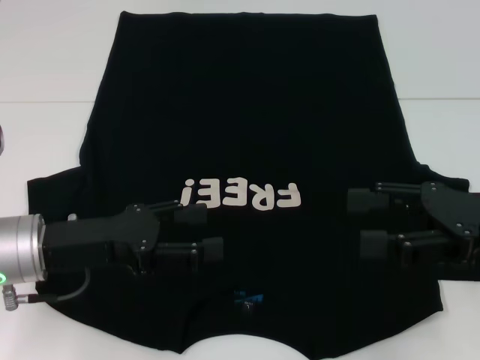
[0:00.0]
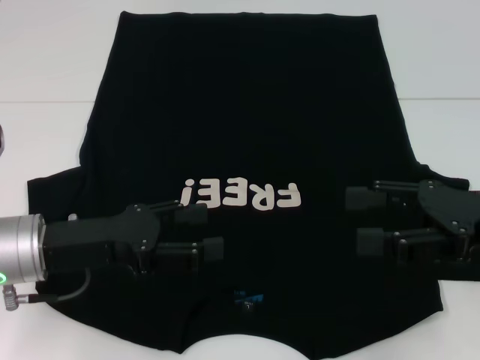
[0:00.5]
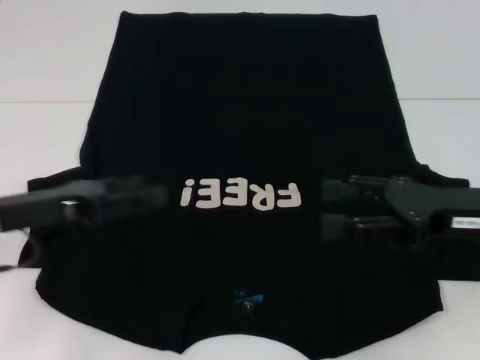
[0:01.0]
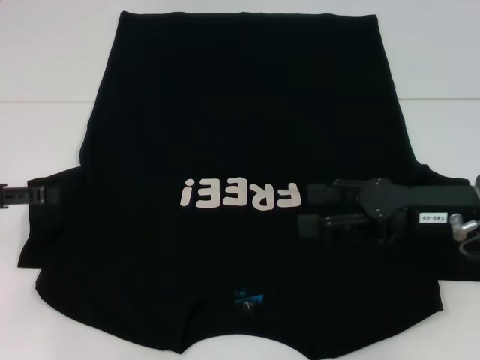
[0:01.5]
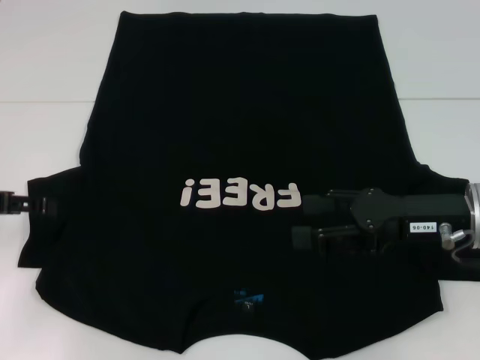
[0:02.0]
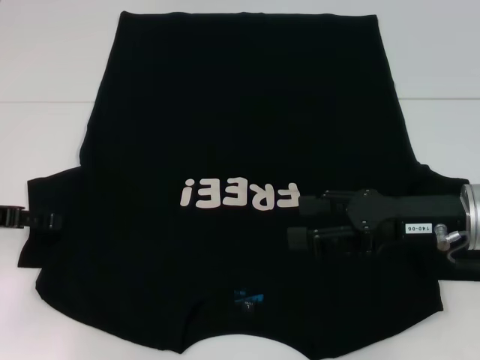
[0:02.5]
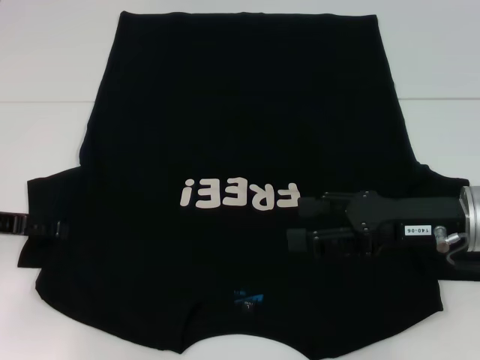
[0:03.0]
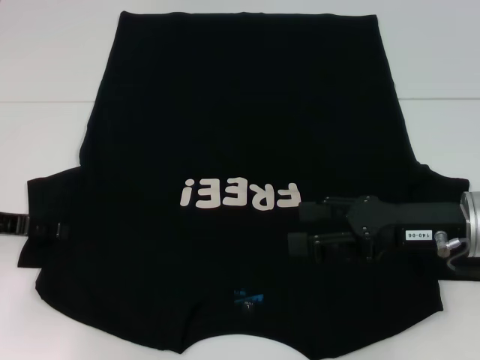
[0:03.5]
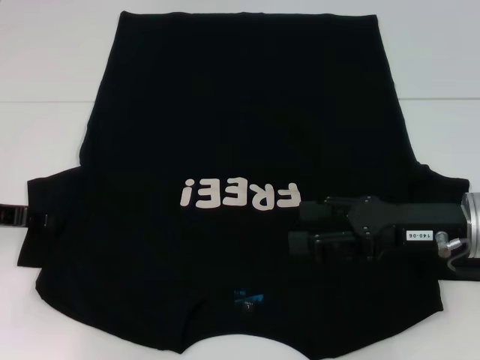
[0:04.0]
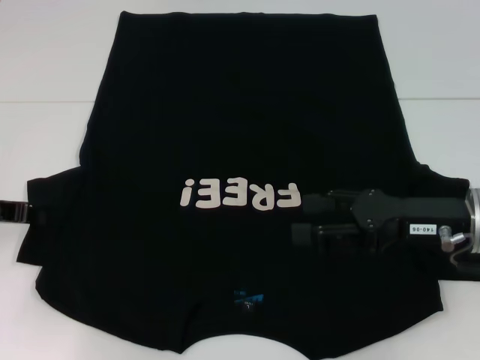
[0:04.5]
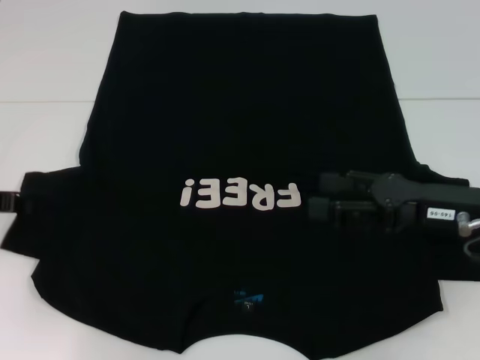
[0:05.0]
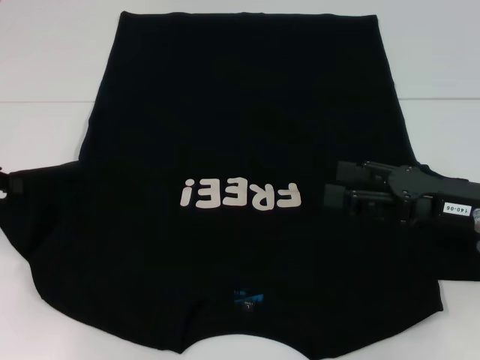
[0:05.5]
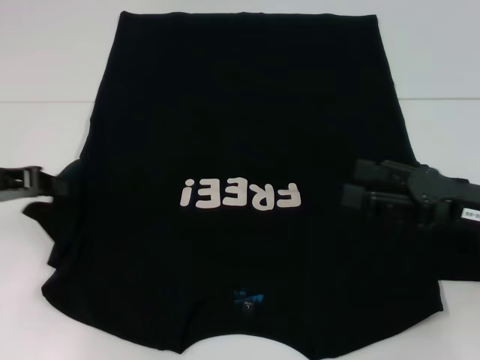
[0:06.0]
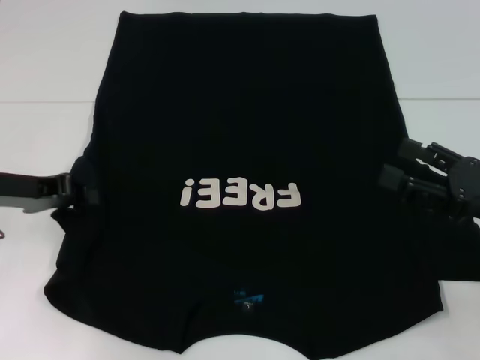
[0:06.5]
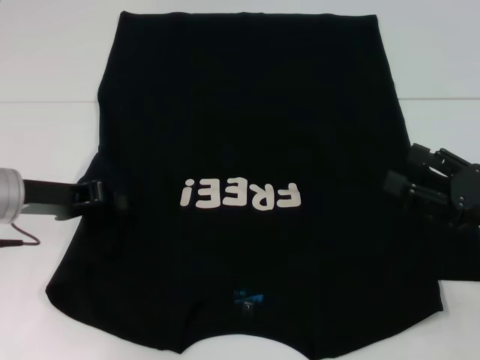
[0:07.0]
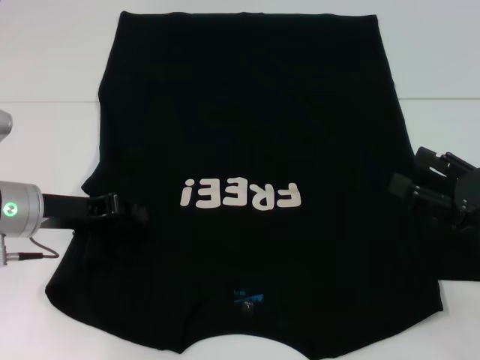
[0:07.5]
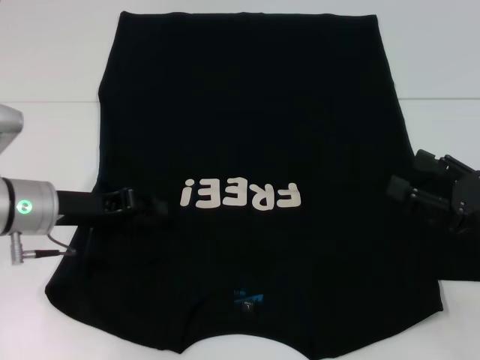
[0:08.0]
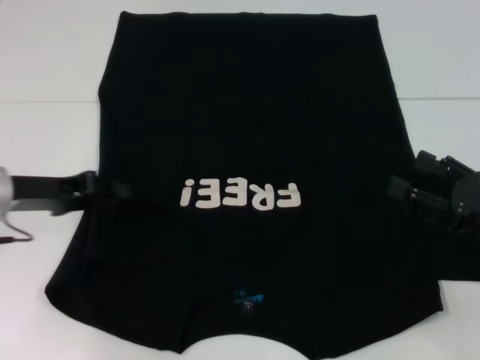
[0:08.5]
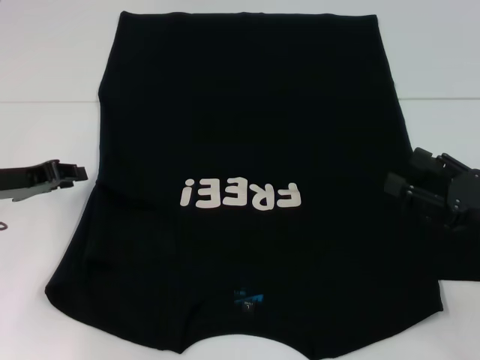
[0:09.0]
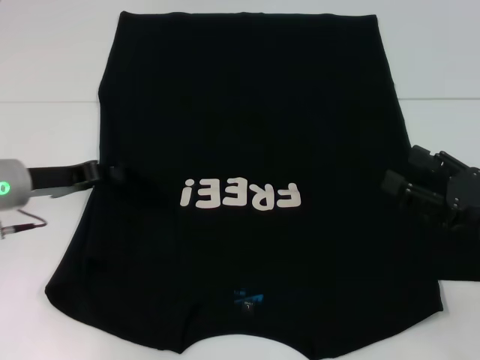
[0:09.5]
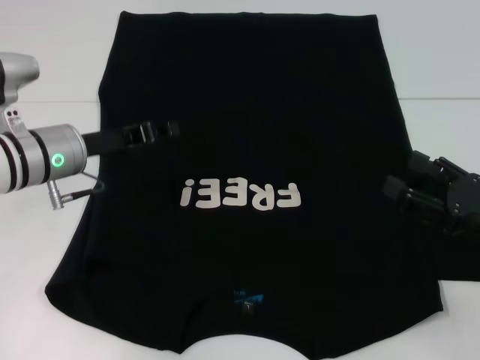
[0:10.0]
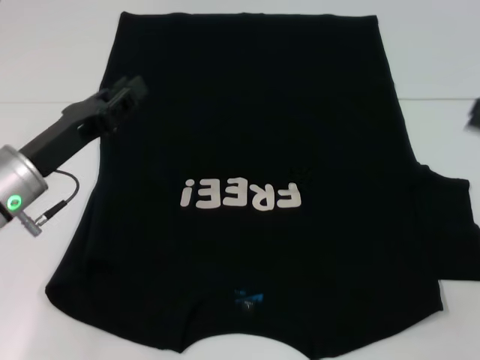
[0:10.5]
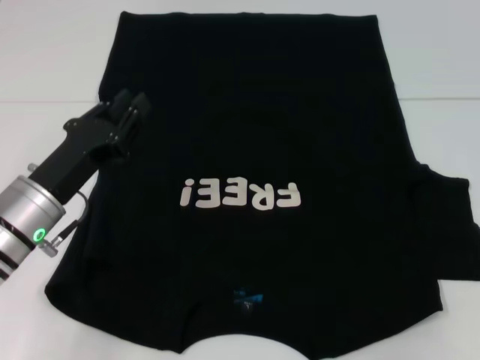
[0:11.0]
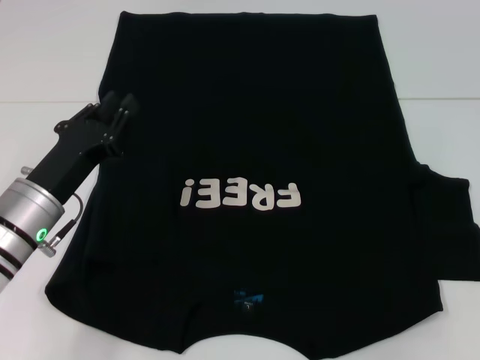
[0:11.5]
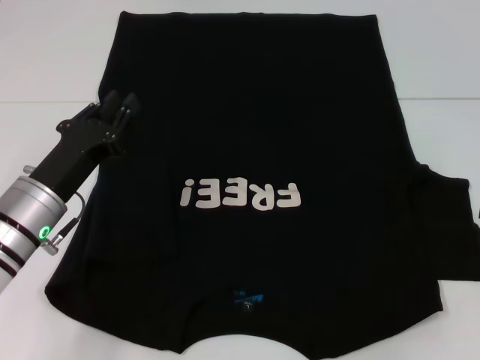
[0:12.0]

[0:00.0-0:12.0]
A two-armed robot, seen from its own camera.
Step, 0:00.0 to 0:08.0: Fold the bottom left sleeve with your left hand.
0:00.0 to 0:02.0: The right gripper changes place by approximately 5 cm, while the left gripper heads to the left, covering about 10 cm.
0:02.0 to 0:04.0: The left gripper closes its fingers.
0:04.0 to 0:06.0: The left gripper closes up.
0:06.0 to 0:08.0: The right gripper ends up approximately 5 cm from where it was; the left gripper travels to the right and downward by approximately 10 cm.
0:08.0 to 0:10.0: The left gripper moves roughly 5 cm to the left and comes back.
0:10.0 to 0:12.0: The left gripper moves backward, approximately 10 cm. The right gripper is displaced to the right, forward and upward by approximately 10 cm.

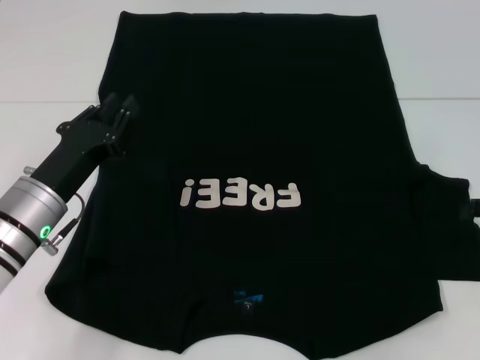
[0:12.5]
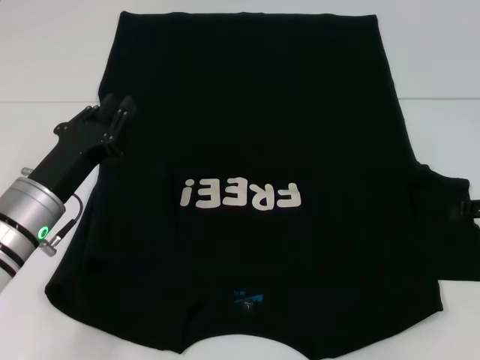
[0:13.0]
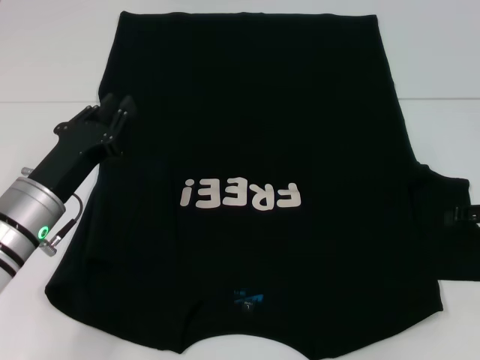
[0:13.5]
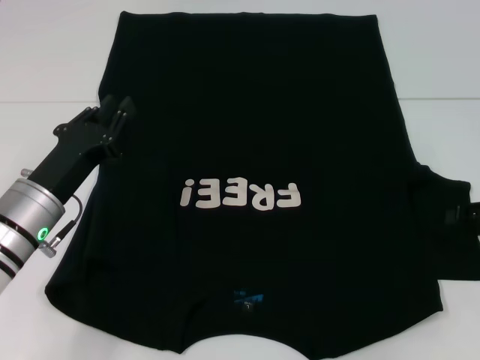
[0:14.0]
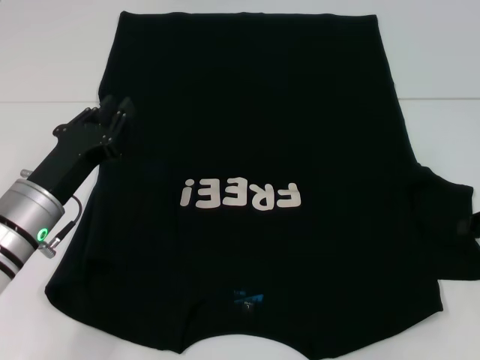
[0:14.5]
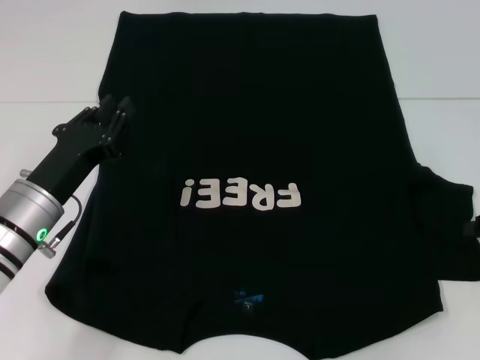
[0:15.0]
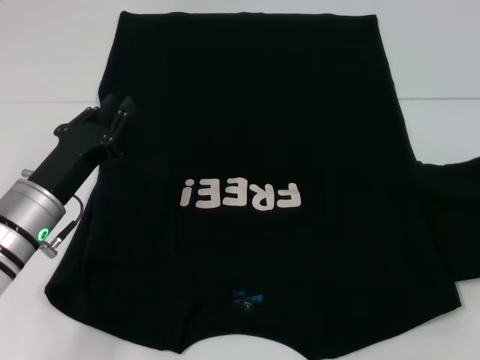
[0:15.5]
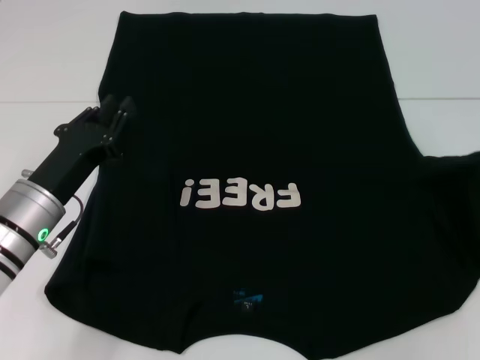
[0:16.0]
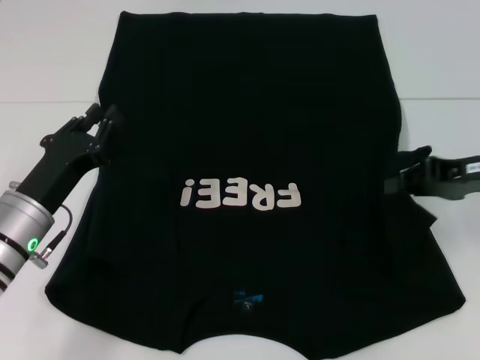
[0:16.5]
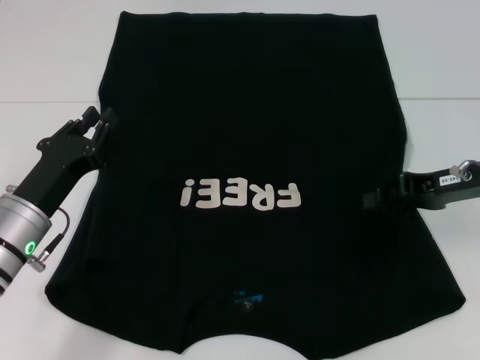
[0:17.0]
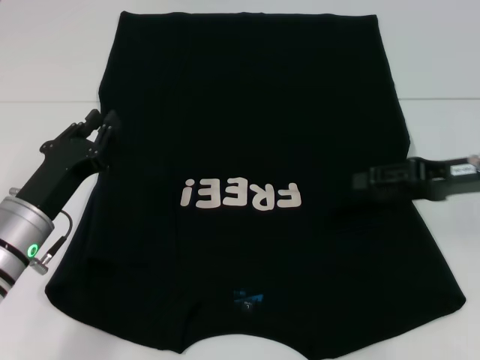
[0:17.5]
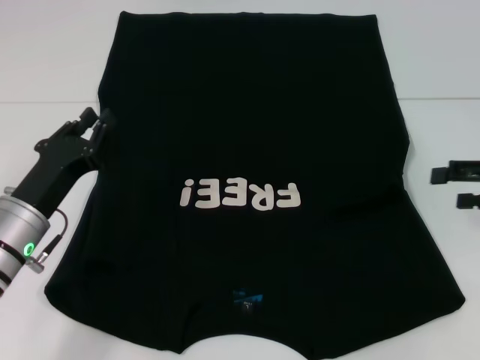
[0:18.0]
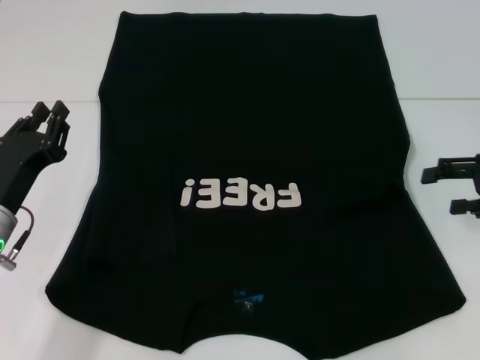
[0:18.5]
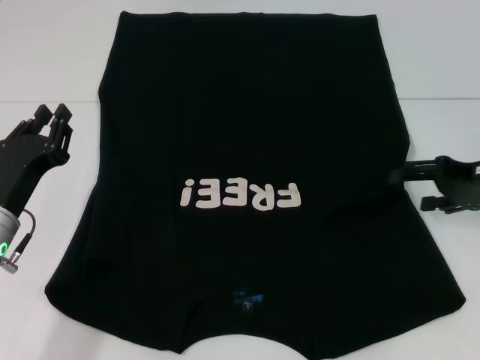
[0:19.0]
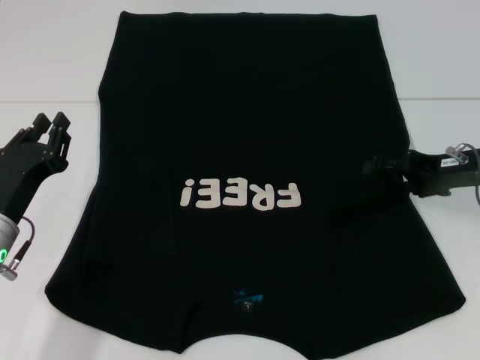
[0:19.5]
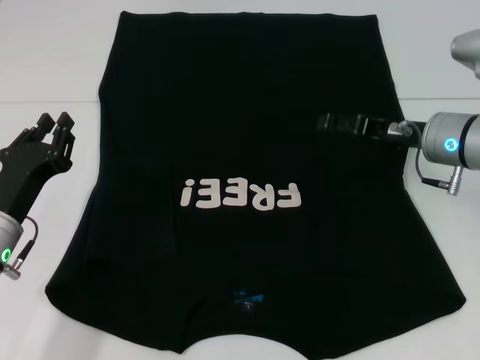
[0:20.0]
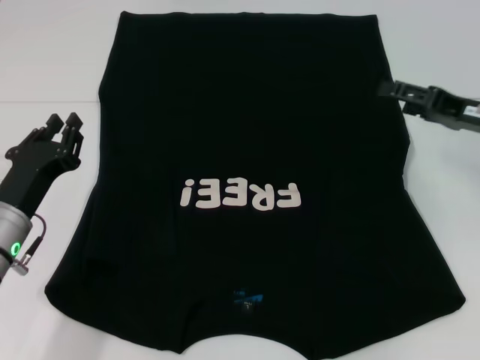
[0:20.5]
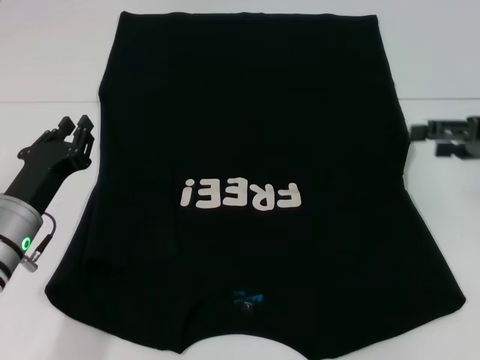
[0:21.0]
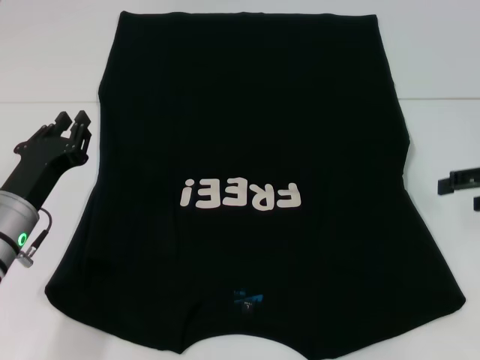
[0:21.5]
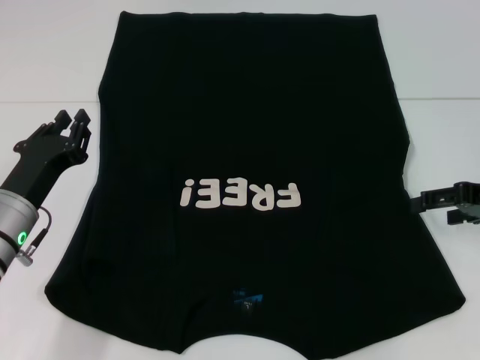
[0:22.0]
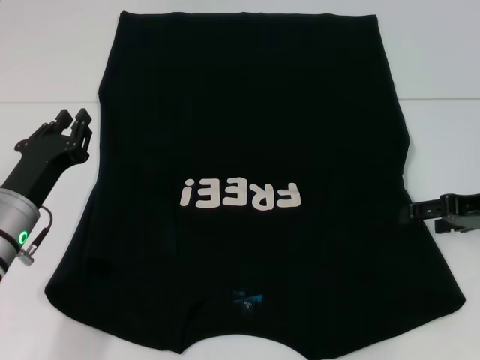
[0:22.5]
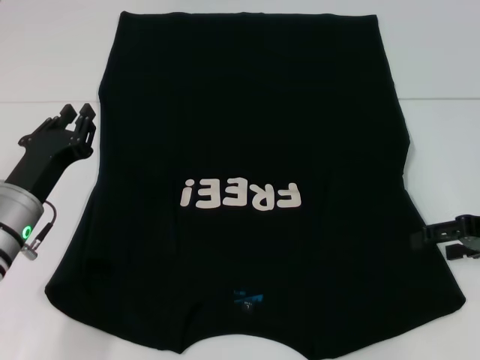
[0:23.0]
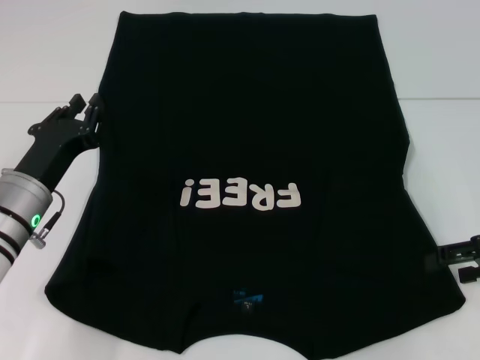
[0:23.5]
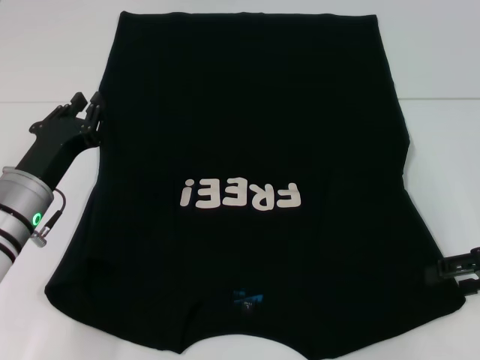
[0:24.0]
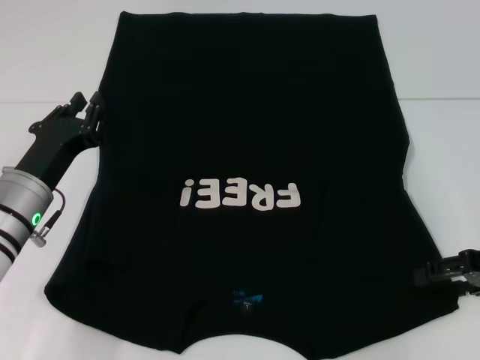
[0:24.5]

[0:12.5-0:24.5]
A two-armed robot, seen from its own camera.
Step, 0:12.5 to 0:17.0: Fold the bottom right sleeve with your right hand.
0:14.5 to 0:16.5: The right gripper travels to the left by roughly 5 cm, and closes.
0:16.5 to 0:18.5: The right gripper moves to the right, about 5 cm, and opens its fingers.
0:22.5 to 0:24.5: The grippers stay close to where they were, moving slightly.

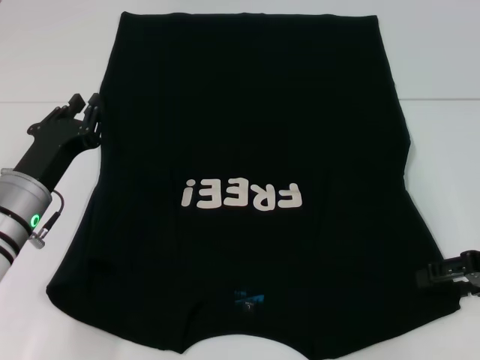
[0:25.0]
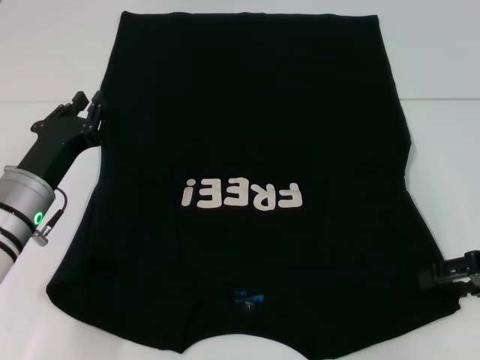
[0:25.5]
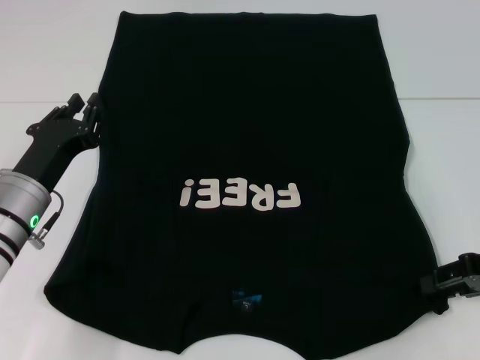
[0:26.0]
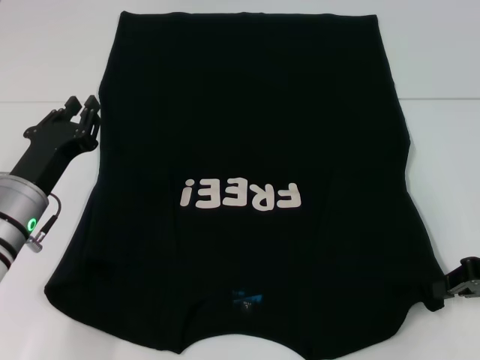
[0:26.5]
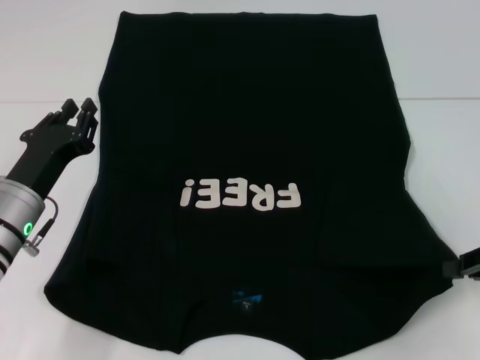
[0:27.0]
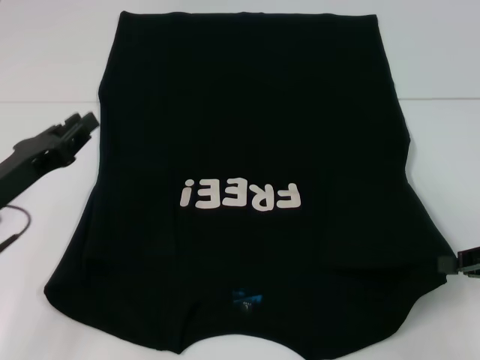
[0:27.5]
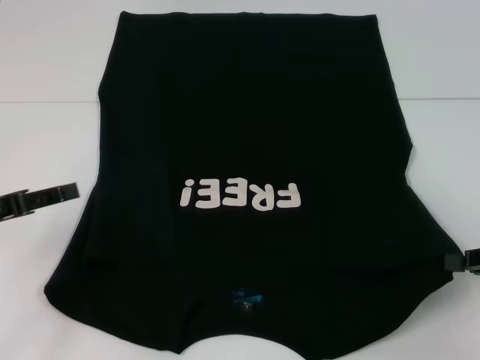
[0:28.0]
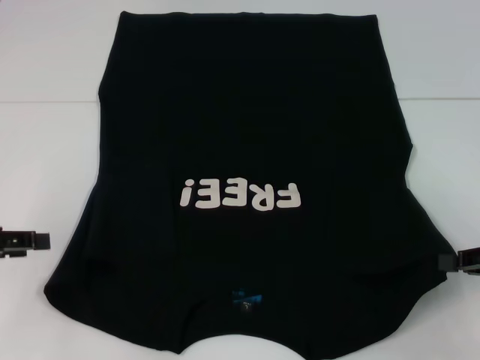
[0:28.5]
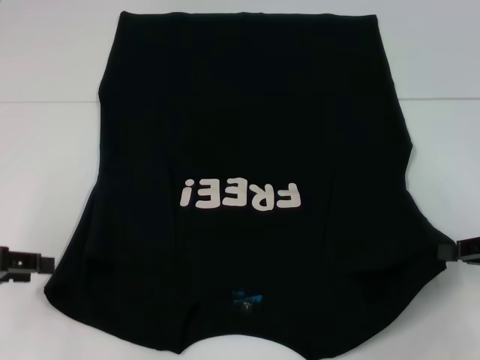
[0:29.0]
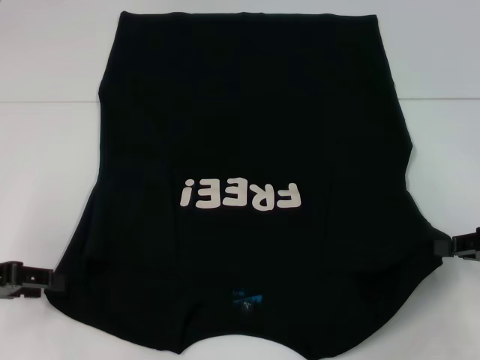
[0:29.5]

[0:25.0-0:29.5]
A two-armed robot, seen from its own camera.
0:25.0 to 0:27.0: The right gripper closes up.
0:27.0 to 0:29.5: The left gripper goes roughly 10 cm to the left and upward.
